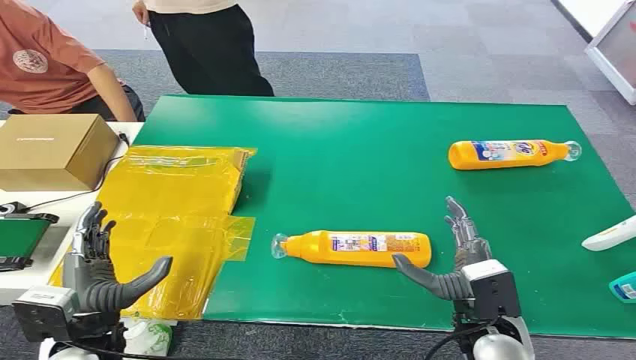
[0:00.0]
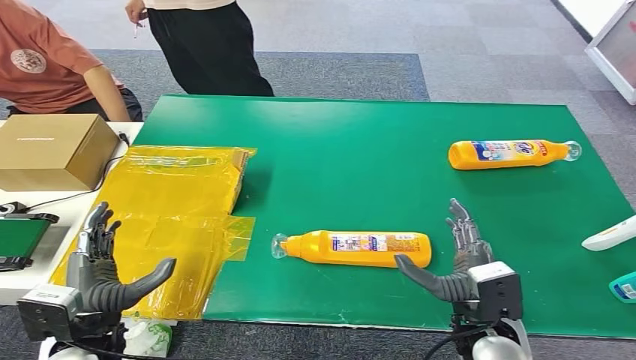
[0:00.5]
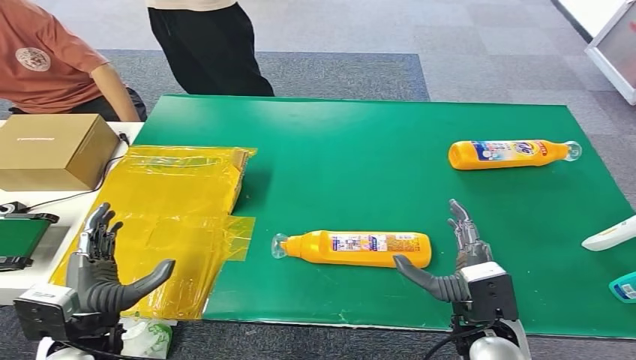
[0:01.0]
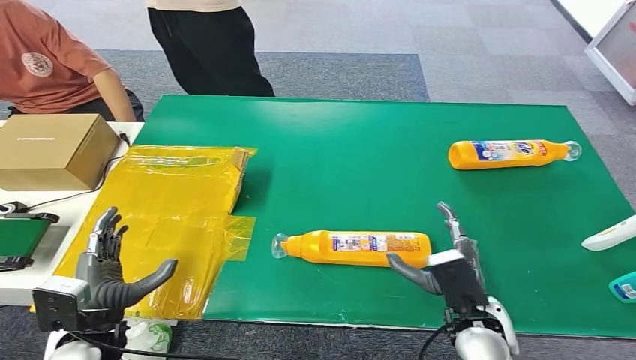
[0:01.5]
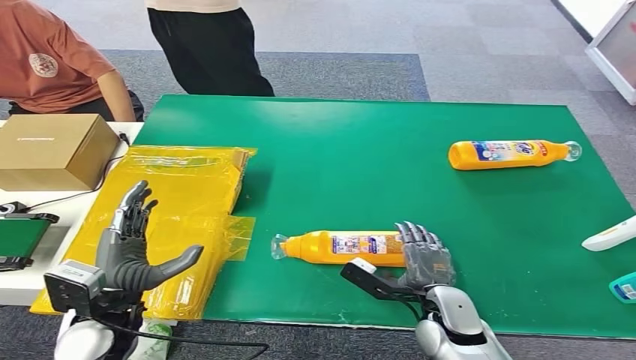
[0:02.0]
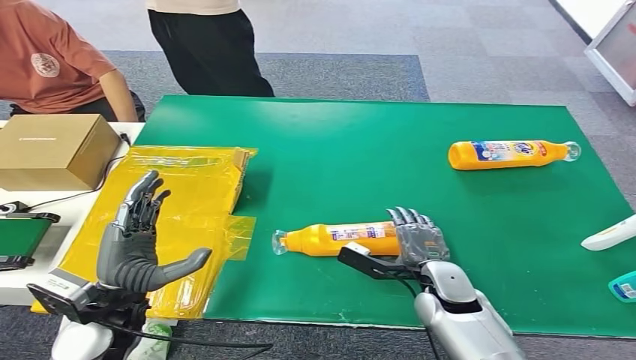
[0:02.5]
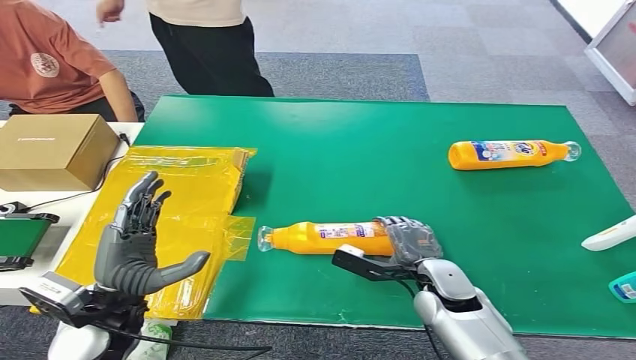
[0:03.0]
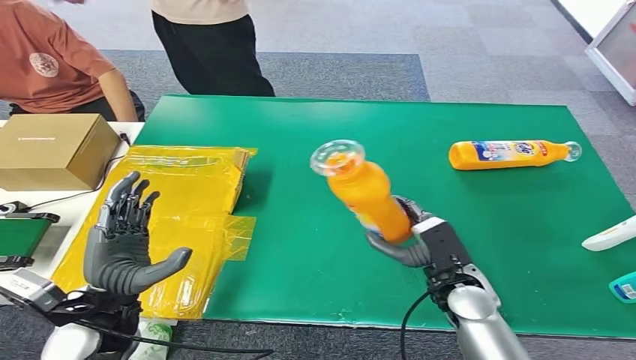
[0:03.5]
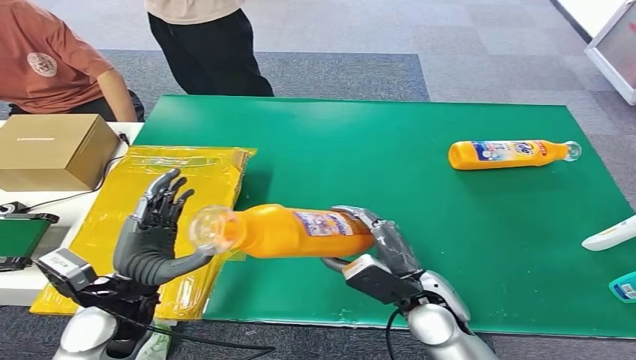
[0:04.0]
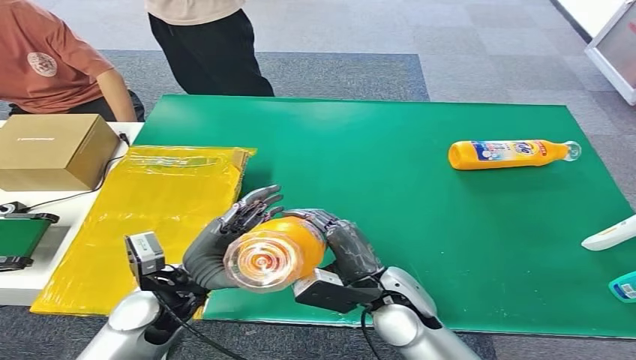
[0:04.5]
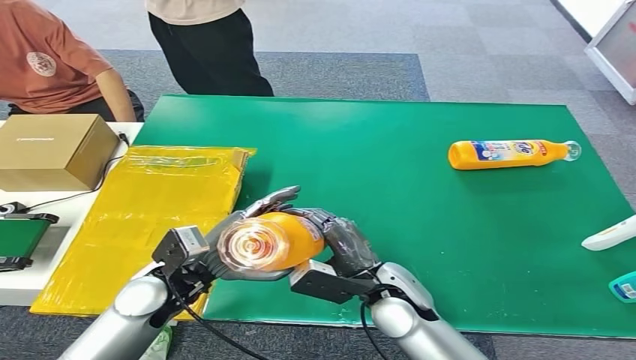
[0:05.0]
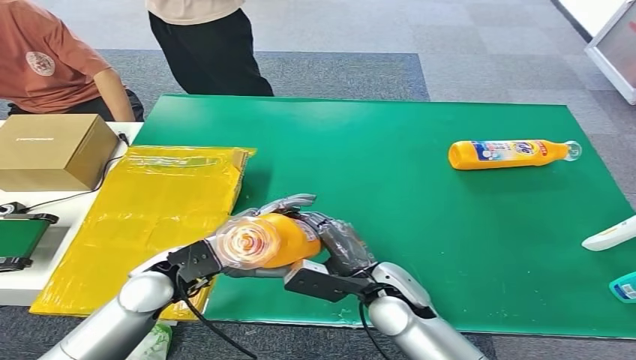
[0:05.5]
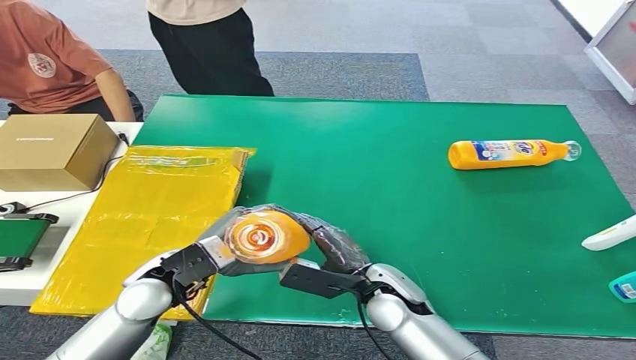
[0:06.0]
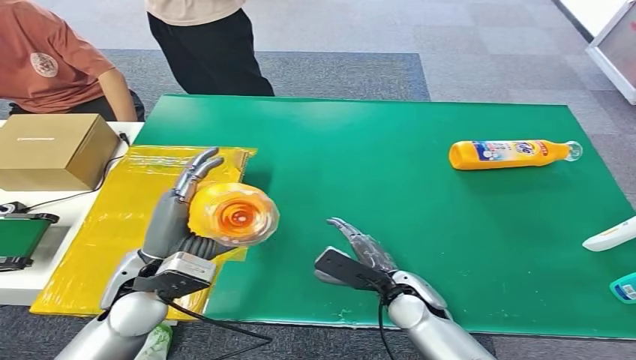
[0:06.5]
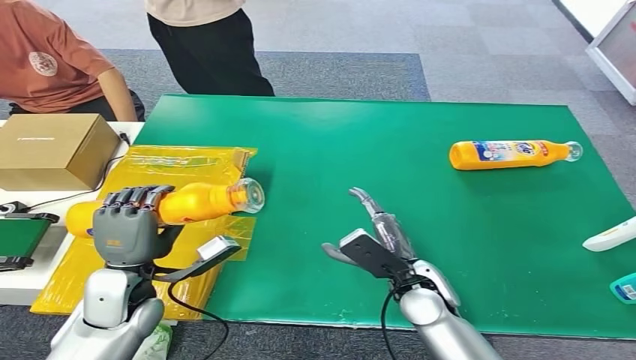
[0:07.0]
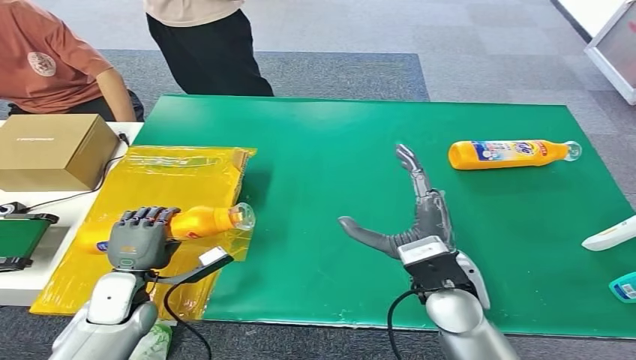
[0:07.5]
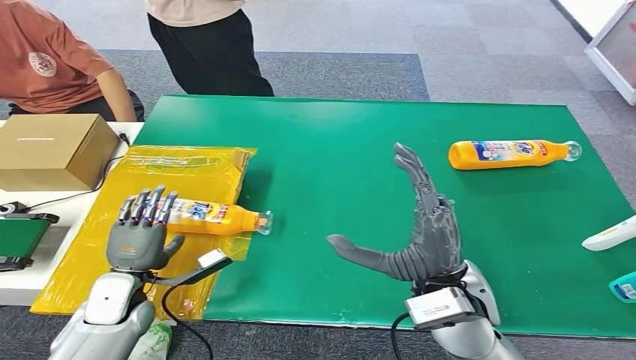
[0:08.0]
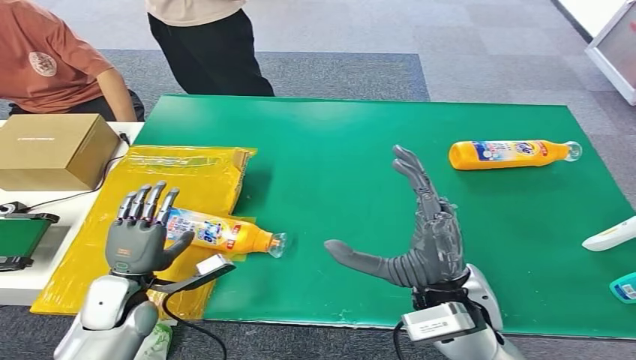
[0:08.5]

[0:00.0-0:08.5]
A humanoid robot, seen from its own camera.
Step, 0:00.0 to 0:03.5: Pick up the bottle from the table.
Step, 0:04.0 to 0:08.5: Turn the bottle to the front side.
0:02.0 to 0:04.0: The right hand heads upward, covering some 5 cm.
0:04.0 to 0:06.5: The right hand shifts about 5 cm downward.
0:06.5 to 0:08.5: The left hand travels downward and to the left by some 15 cm. The right hand heads upward, covering approximately 15 cm.

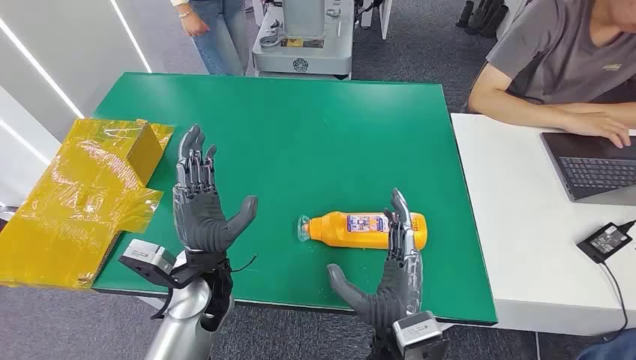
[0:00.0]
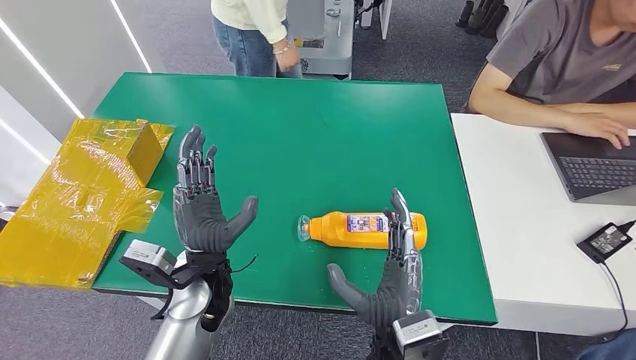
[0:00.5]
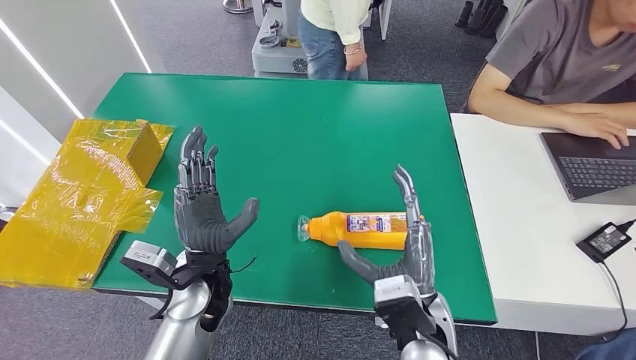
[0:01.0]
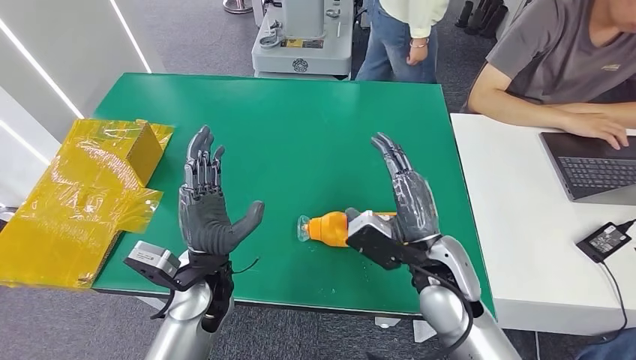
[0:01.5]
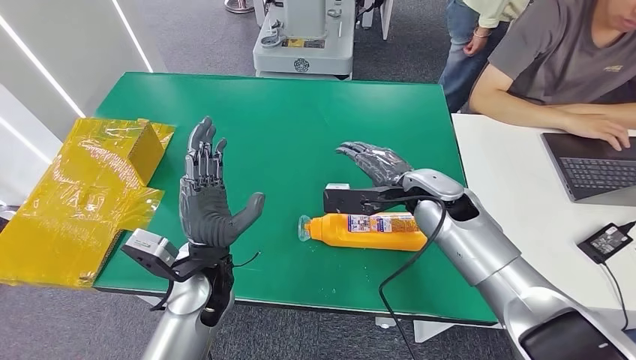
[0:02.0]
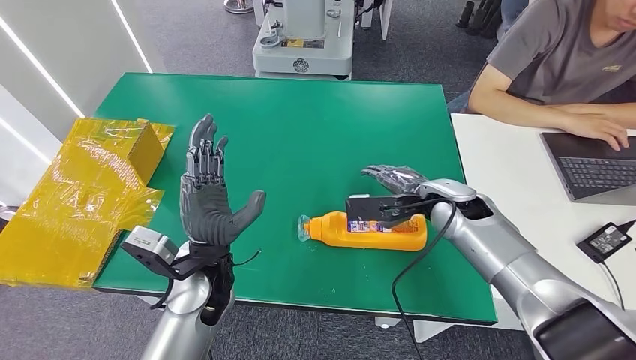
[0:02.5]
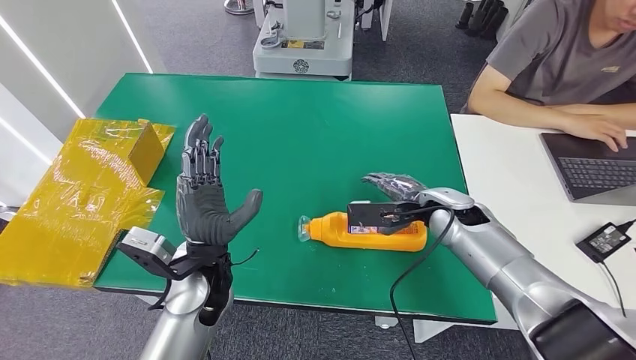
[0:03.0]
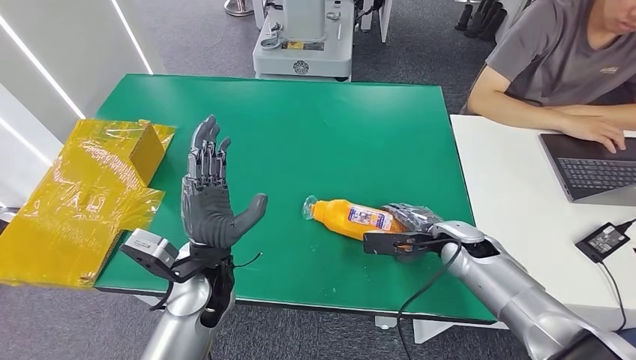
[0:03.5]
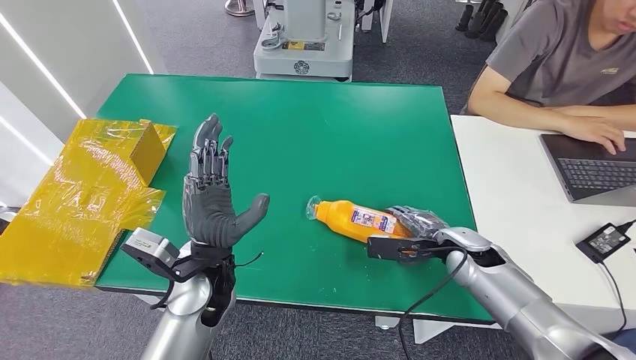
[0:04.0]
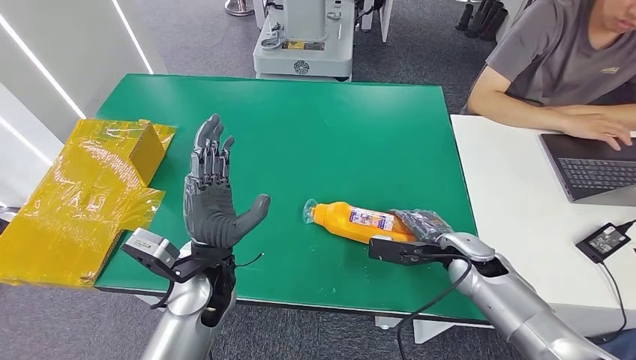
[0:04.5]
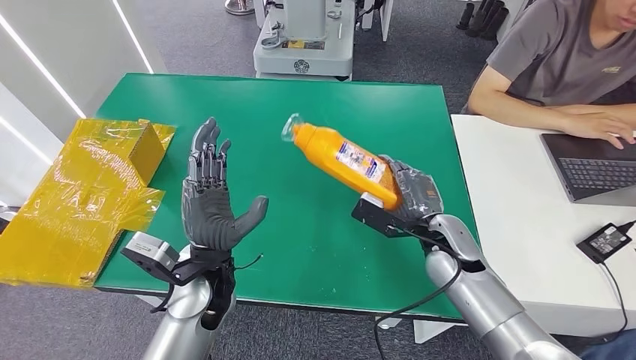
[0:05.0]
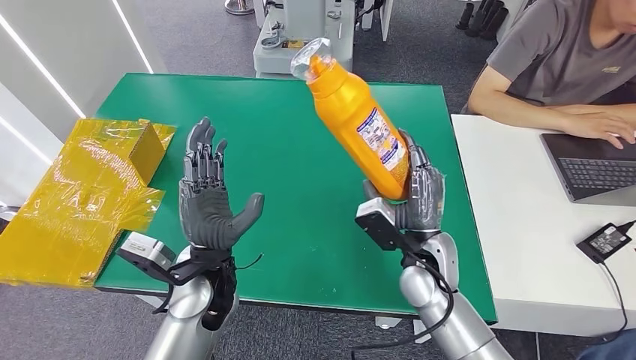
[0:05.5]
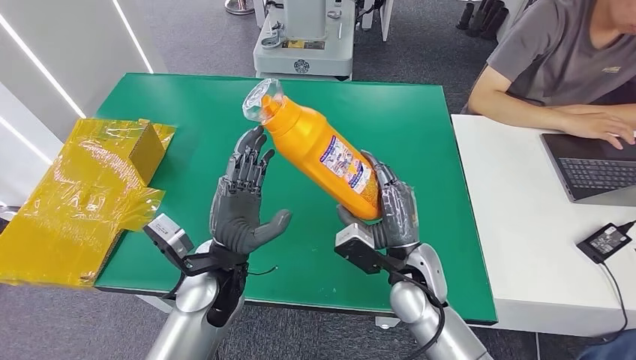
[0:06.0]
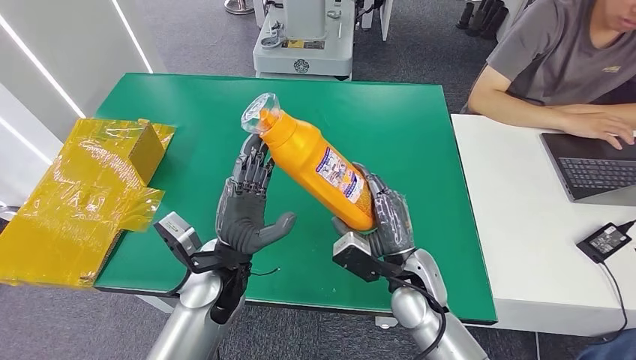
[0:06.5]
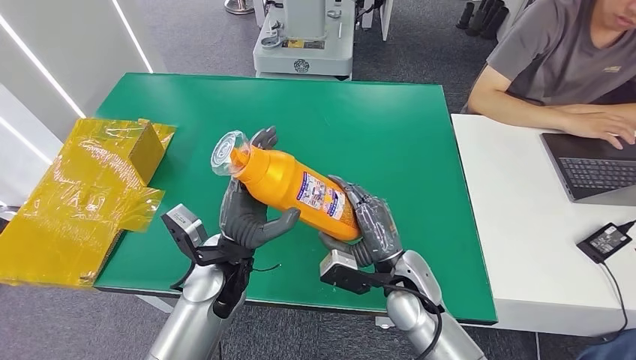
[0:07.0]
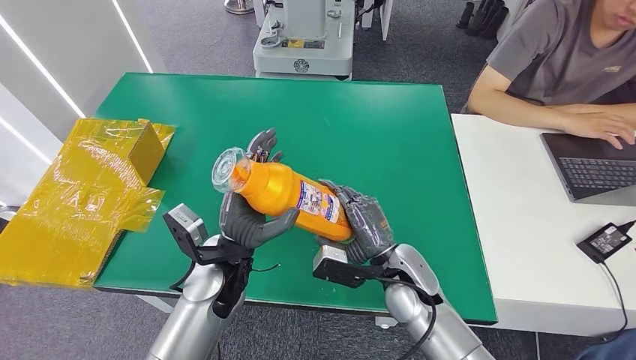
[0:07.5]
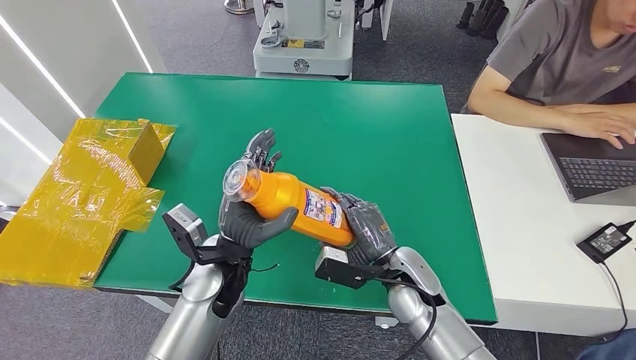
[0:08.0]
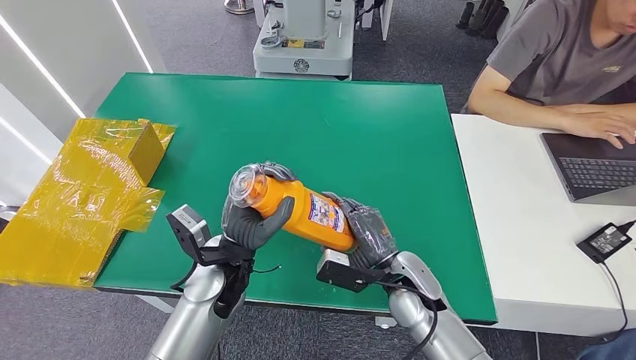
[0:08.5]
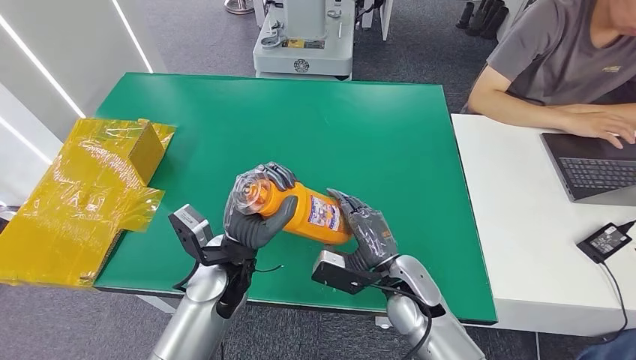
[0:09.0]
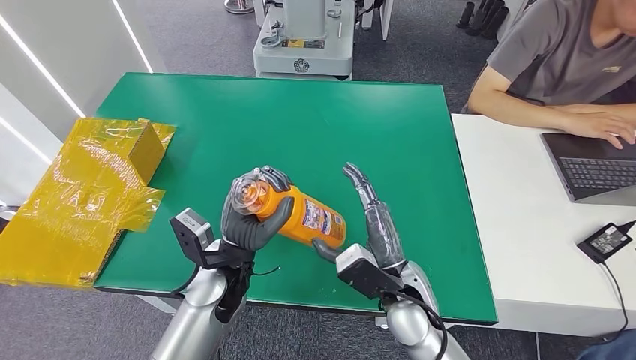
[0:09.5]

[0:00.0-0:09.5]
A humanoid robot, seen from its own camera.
Step, 0:00.0 to 0:05.5: Pick up the bottle from the table.
0:02.0 to 0:04.0: The right hand goes roughly 15 cm downward and to the right.
0:04.0 to 0:05.5: The right hand heads to the left, covering approximately 10 cm.

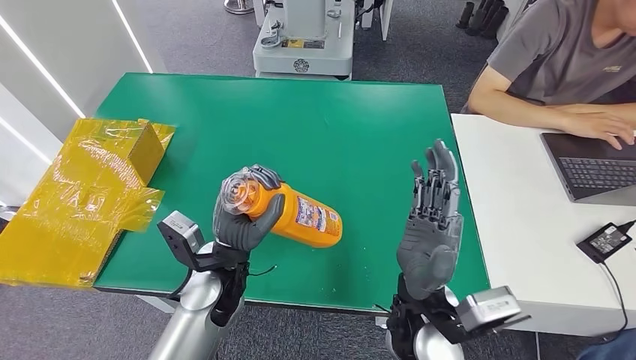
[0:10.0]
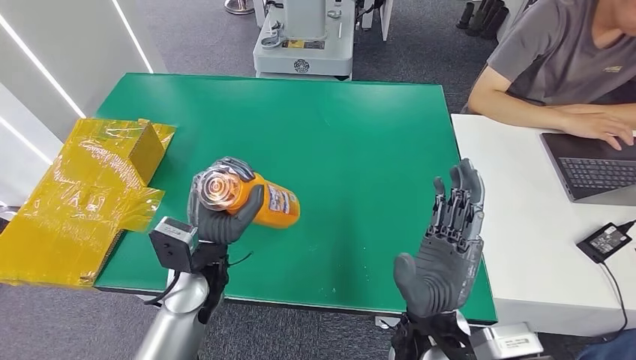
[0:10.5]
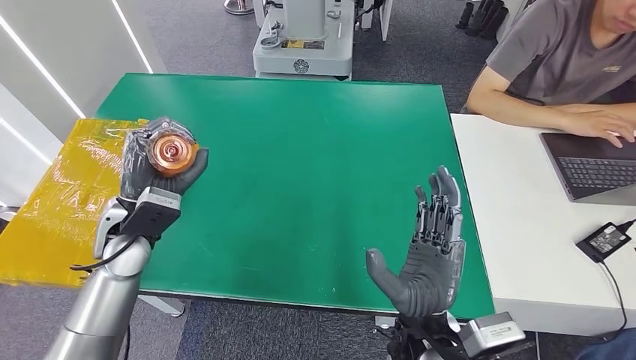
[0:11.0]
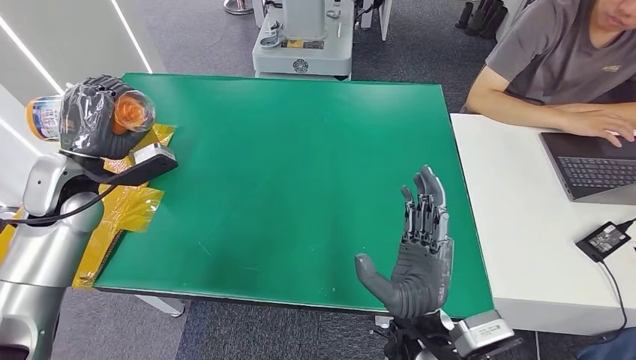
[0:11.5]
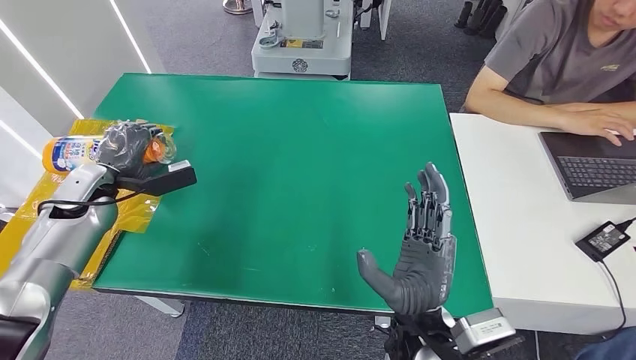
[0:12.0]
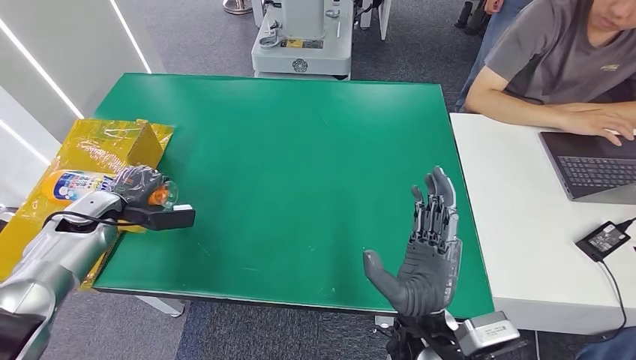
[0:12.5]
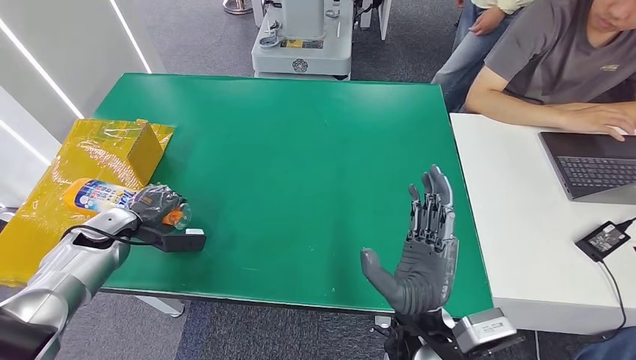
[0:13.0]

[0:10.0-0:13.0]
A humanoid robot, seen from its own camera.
Step, 0:10.0 to 0:13.0: Turn the bottle to the front side.
0:11.5 to 0:13.0: The left hand moves downward, about 15 cm.
